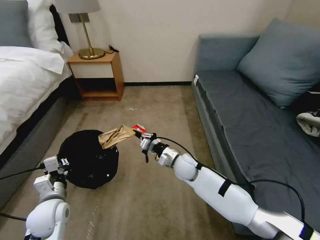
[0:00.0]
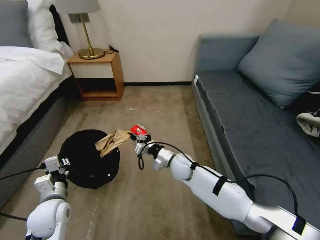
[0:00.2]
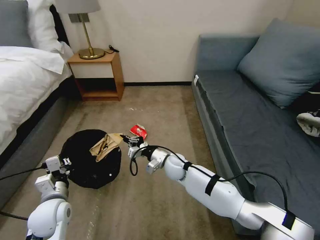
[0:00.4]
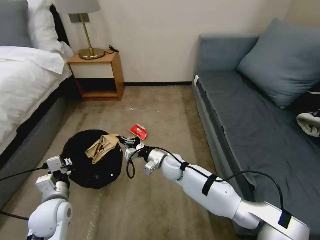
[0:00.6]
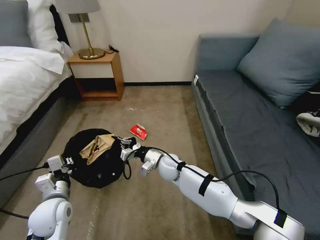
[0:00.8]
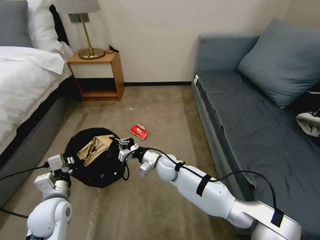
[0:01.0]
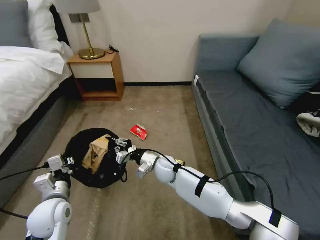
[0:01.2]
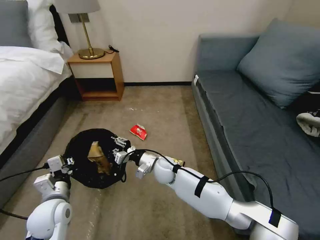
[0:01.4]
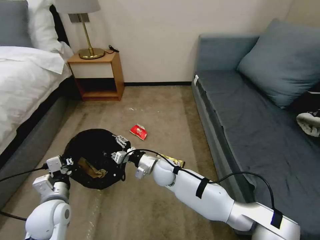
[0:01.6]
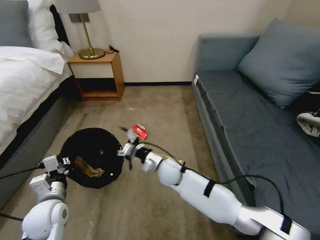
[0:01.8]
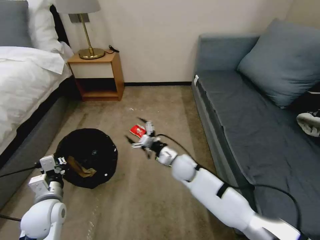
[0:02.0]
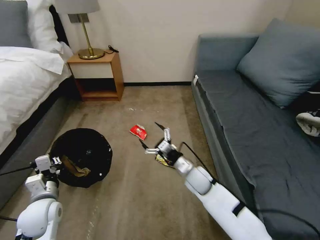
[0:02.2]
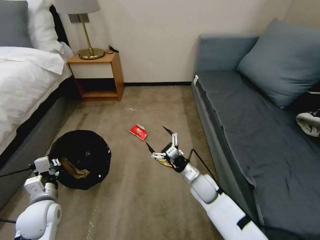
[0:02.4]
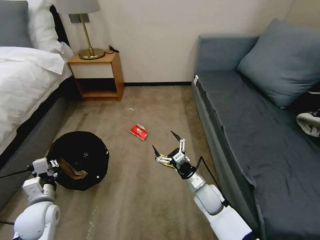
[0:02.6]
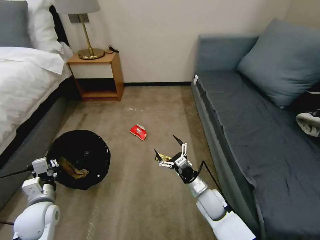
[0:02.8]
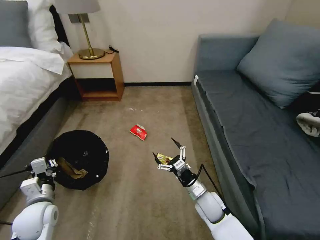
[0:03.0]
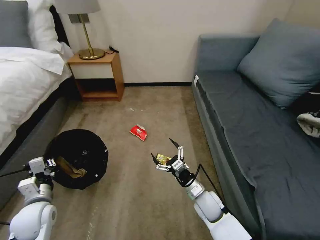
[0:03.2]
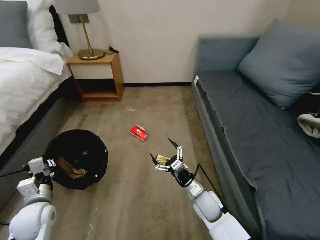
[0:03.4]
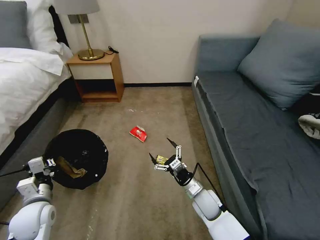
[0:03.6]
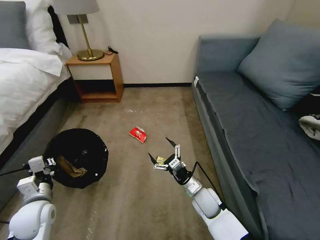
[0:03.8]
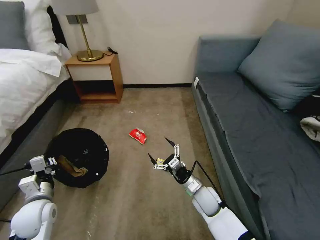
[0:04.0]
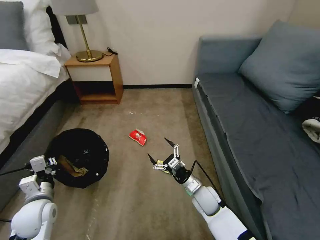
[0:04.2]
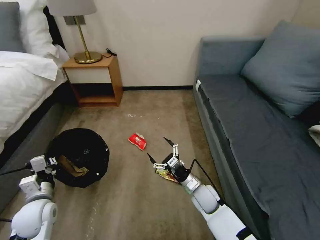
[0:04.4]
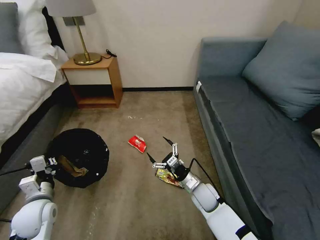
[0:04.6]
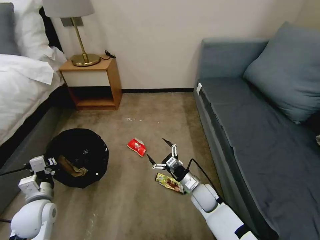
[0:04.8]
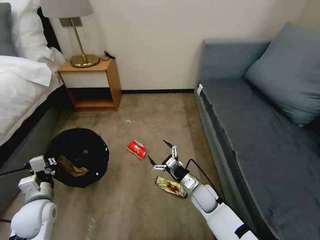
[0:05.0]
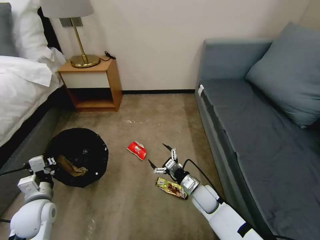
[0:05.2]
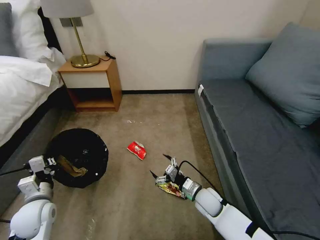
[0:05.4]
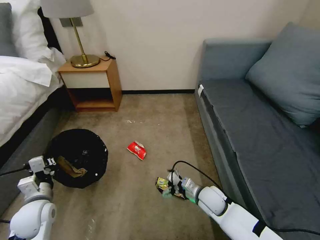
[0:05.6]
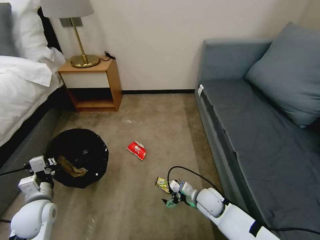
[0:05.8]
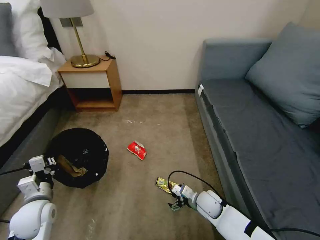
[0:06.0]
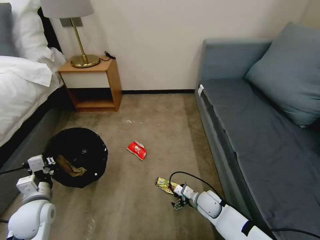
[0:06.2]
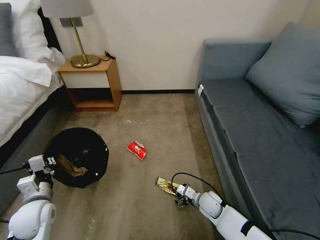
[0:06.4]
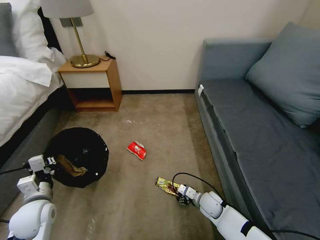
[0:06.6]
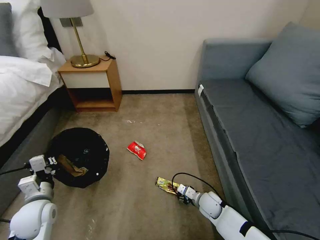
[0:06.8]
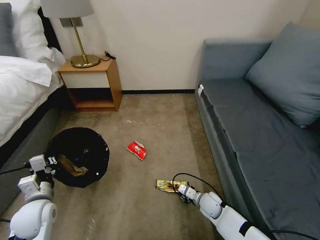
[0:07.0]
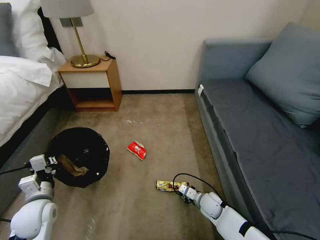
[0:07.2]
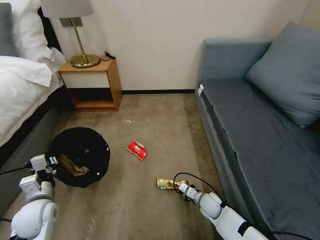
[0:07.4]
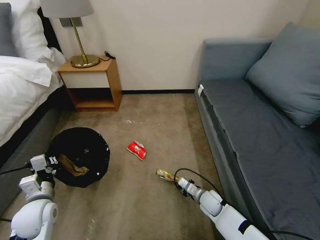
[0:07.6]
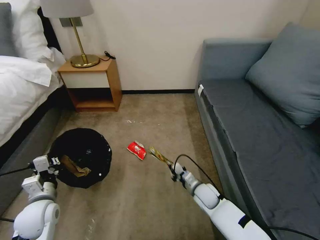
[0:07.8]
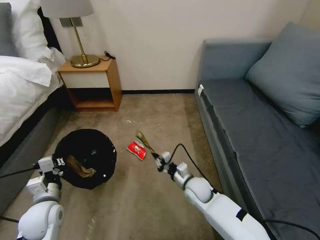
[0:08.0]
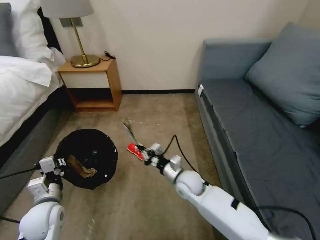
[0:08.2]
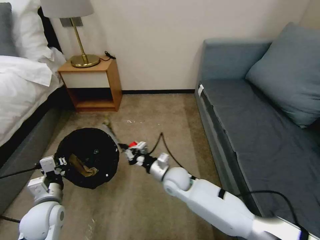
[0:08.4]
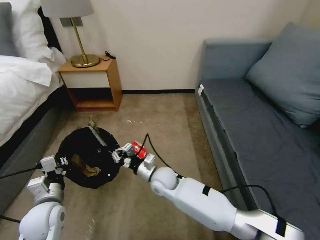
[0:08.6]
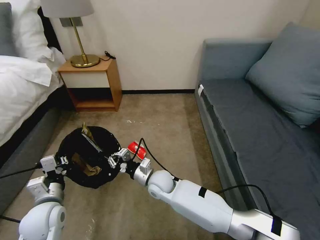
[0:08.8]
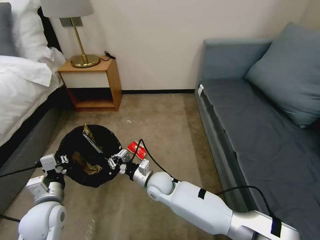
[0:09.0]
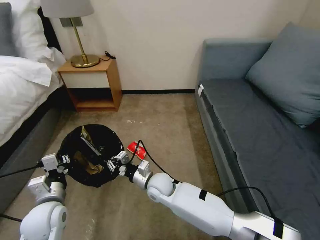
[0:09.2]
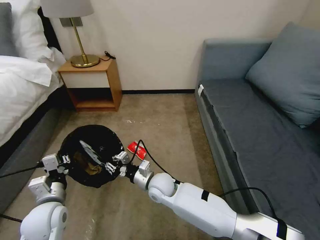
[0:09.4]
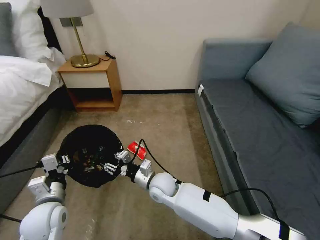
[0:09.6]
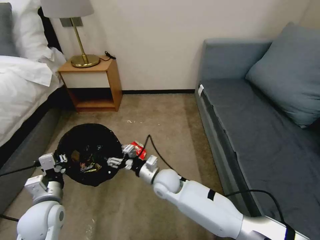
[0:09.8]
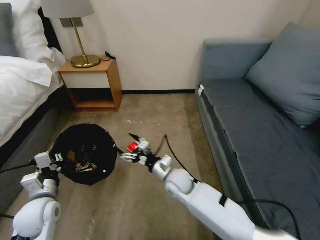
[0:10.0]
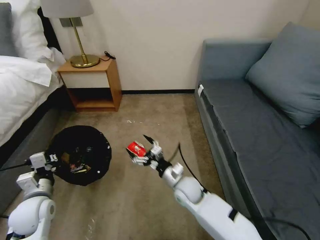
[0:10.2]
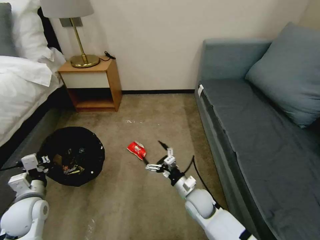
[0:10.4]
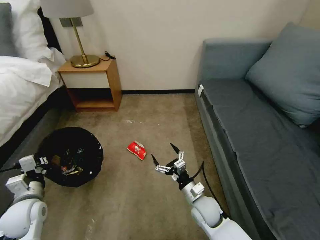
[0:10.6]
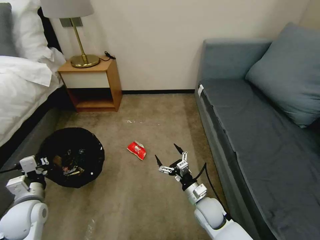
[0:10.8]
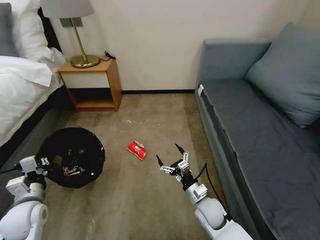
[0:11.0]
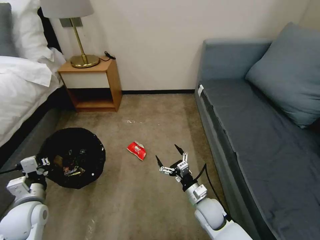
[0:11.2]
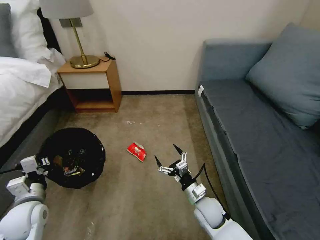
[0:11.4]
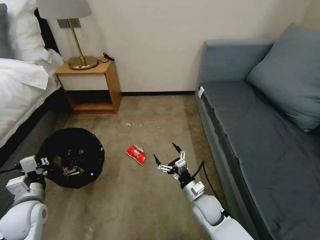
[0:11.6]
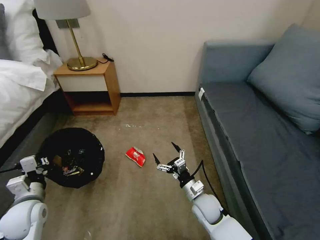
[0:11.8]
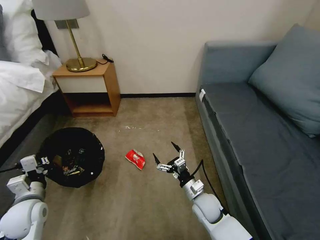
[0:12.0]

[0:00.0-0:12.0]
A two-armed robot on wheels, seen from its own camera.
Task of the whole recording: Pick up the trash bin, then pick up the garbage on the floor and place it into the trash bin.
0:00.0 to 0:01.6: The right gripper moves to the left, about 10 cm, and opens up.
0:01.6 to 0:03.0: The left gripper changes place by about 5 cm, while the right gripper moves to the right and backward, approximately 20 cm, and opens its fingers.
0:03.0 to 0:04.4: The grippers move only a little.
0:06.0 to 0:07.6: The right gripper travels downward by about 5 cm, and closes its fingers.
0:07.6 to 0:09.0: The right gripper heads to the left and upward, covering roughly 25 cm.
0:09.0 to 0:10.4: The left gripper travels to the left by approximately 5 cm, while the right gripper shifts roughly 15 cm to the right, and opens up.
0:10.4 to 0:12.0: The grippers move only a little.

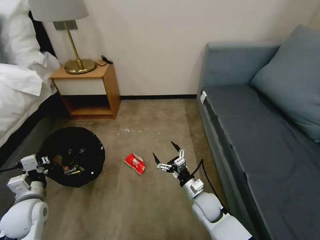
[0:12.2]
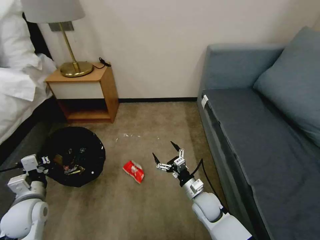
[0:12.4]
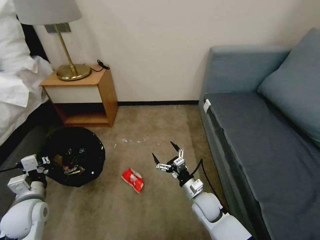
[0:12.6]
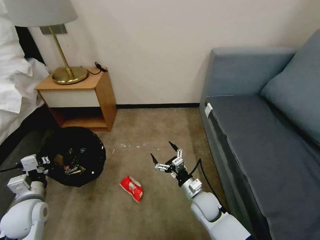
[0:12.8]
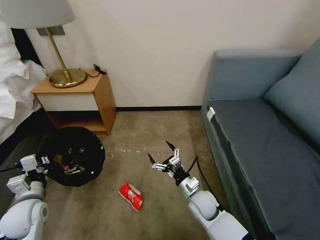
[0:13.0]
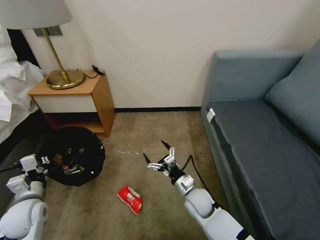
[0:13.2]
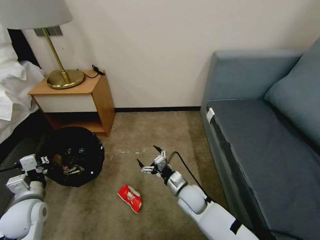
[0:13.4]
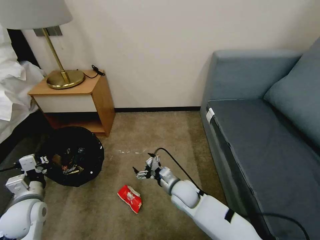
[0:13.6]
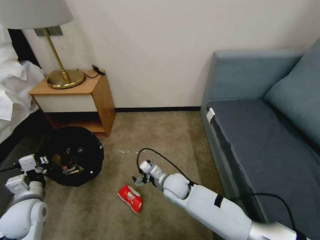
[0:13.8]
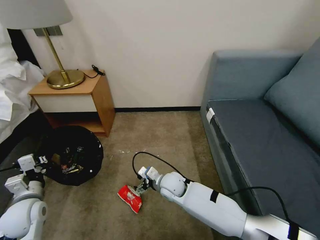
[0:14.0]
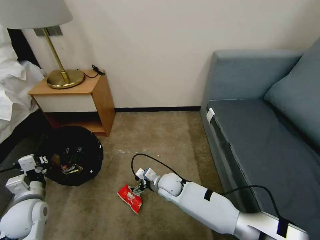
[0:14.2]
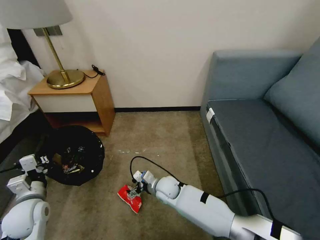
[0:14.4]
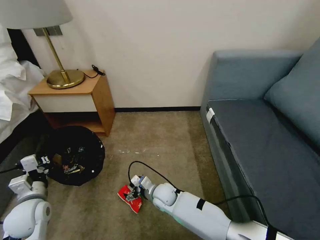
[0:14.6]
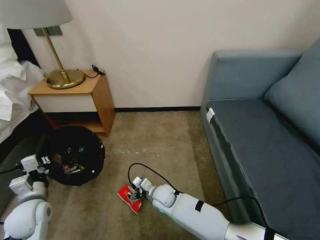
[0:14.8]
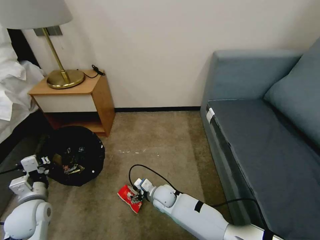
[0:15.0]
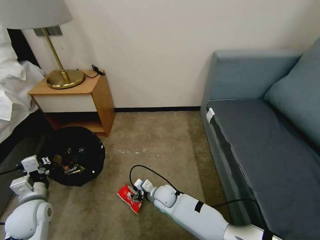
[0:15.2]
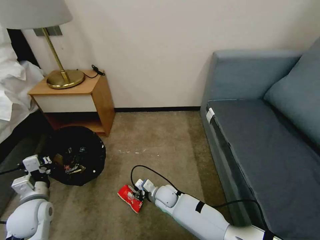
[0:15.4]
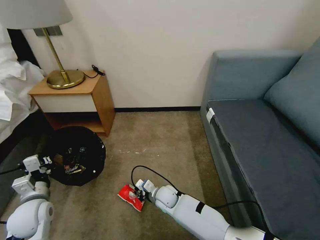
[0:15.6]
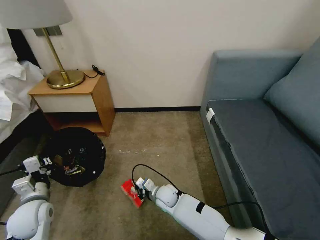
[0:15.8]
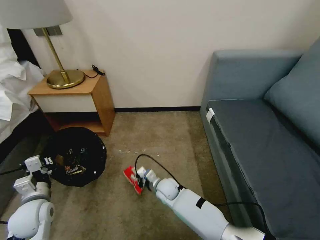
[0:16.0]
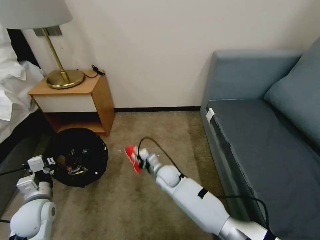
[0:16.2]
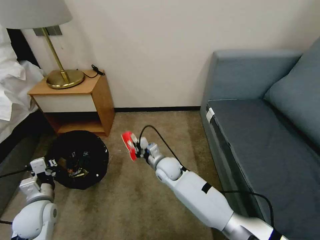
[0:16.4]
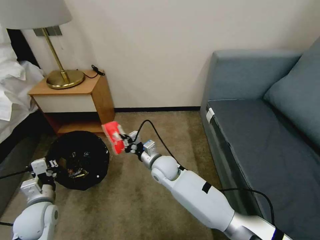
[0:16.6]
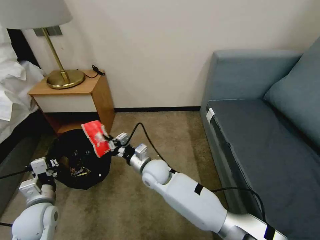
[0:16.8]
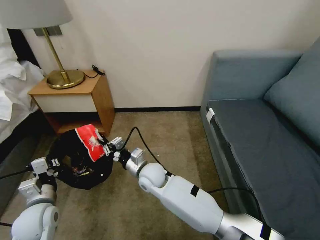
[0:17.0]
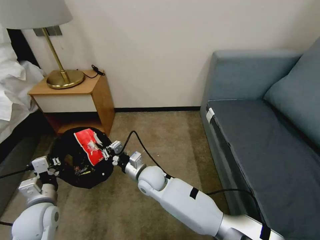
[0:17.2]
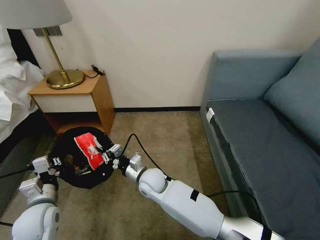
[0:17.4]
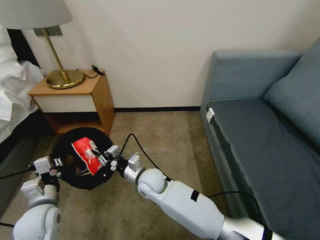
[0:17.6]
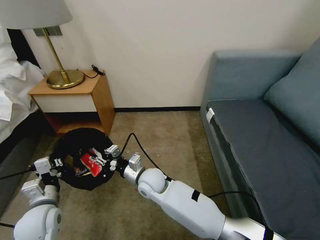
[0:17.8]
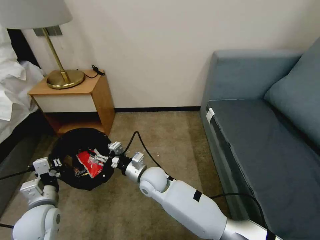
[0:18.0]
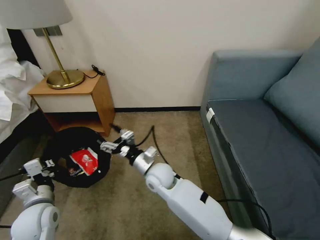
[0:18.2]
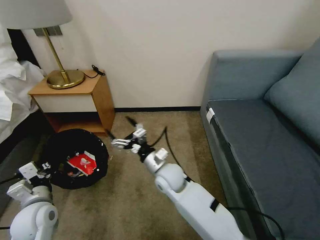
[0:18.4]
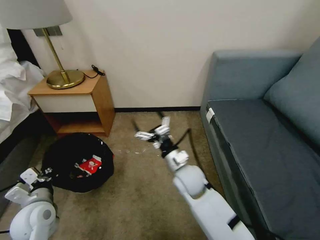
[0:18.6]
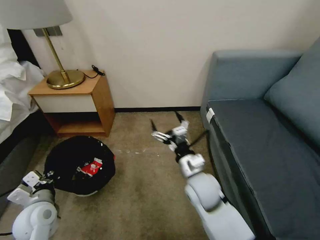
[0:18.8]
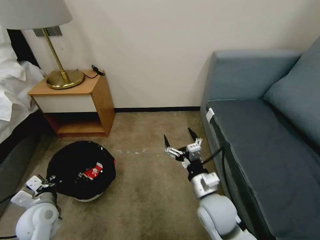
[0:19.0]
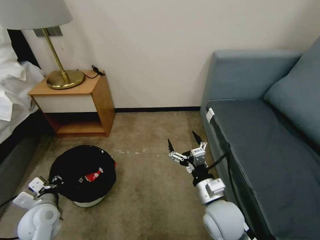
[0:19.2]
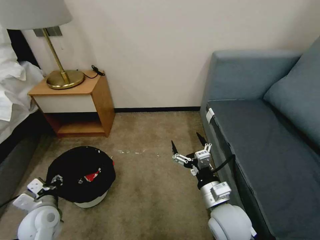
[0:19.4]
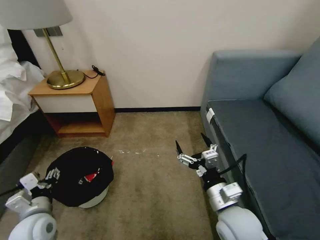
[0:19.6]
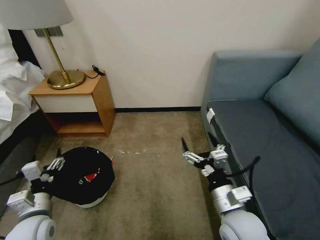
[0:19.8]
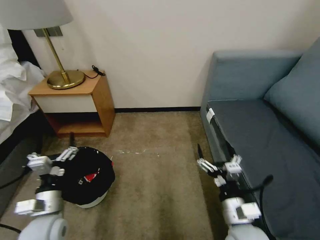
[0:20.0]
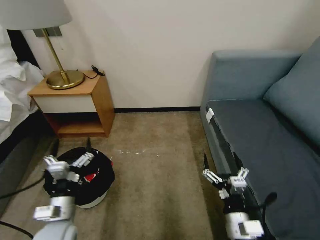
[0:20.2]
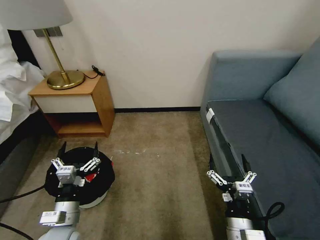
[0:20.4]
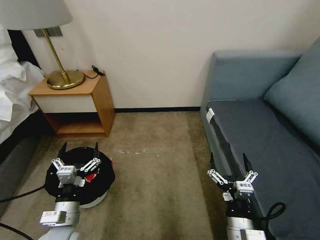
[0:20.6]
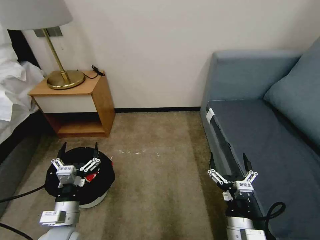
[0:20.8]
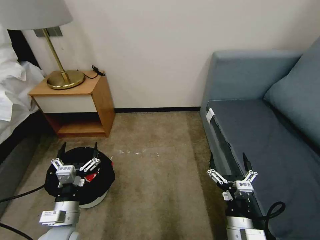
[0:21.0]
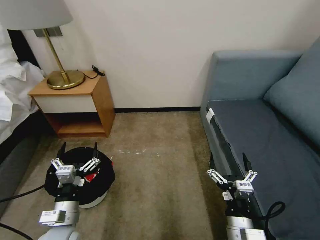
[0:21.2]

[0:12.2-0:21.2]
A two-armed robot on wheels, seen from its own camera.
Task of the whole recording: Pick up the trash bin, then pick up the garbage on the floor and place it into the trash bin.
0:12.2 to 0:13.8: The right gripper goes about 10 cm to the left and forward.
0:13.8 to 0:15.2: The right gripper moves downward, roughly 10 cm.
0:15.2 to 0:16.6: The right gripper moves upward and forward, approximately 15 cm, and closes its fingers.
0:16.6 to 0:18.2: The right gripper ends up approximately 5 cm from where it was, and opens up.
0:18.2 to 0:19.8: The left gripper opens up. The right gripper travels to the right and backward by approximately 25 cm.
0:19.8 to 0:21.2: The right gripper travels backward and downward by roughly 10 cm, while the left gripper moves to the right, approximately 5 cm.
